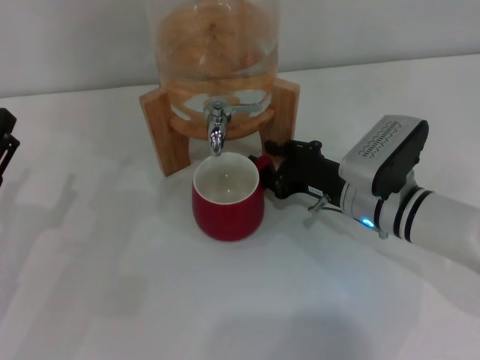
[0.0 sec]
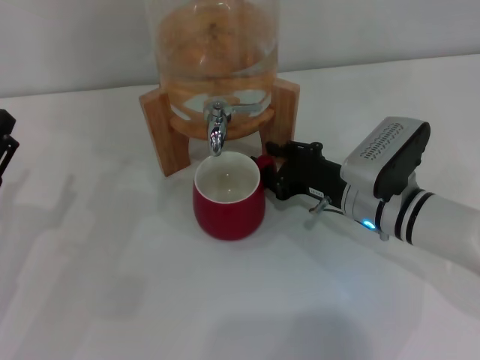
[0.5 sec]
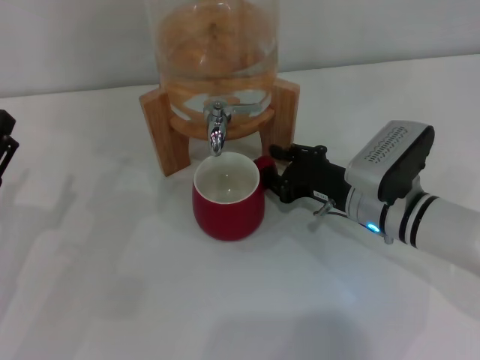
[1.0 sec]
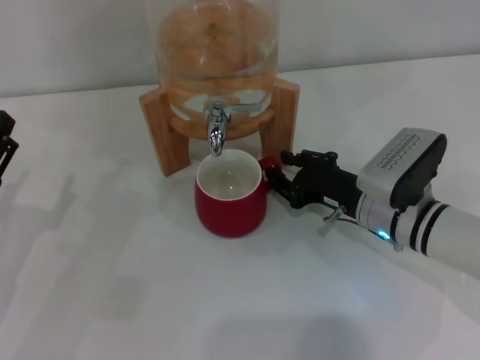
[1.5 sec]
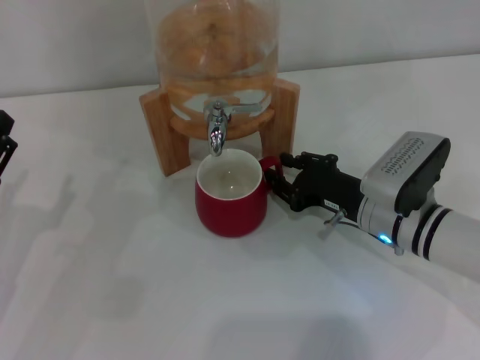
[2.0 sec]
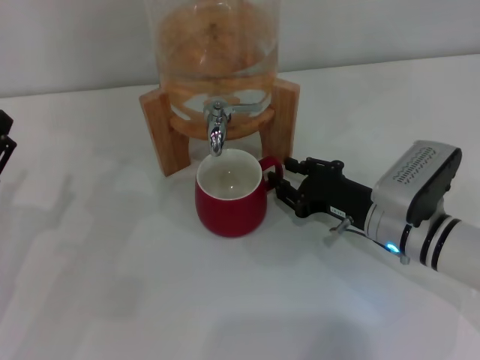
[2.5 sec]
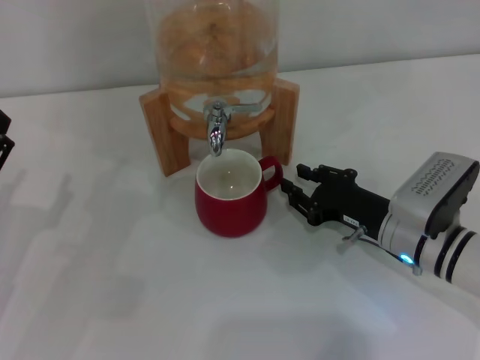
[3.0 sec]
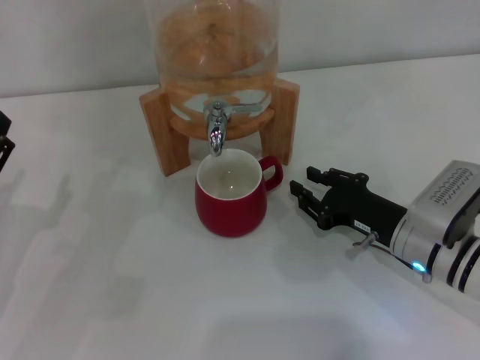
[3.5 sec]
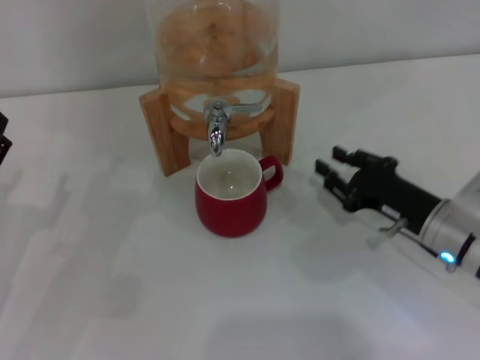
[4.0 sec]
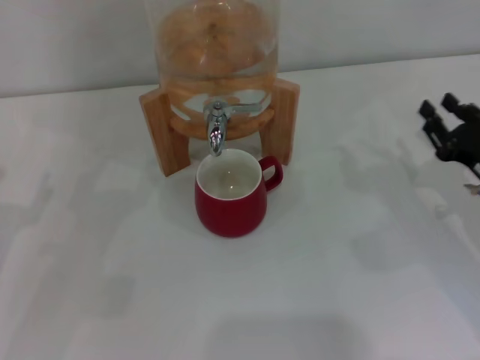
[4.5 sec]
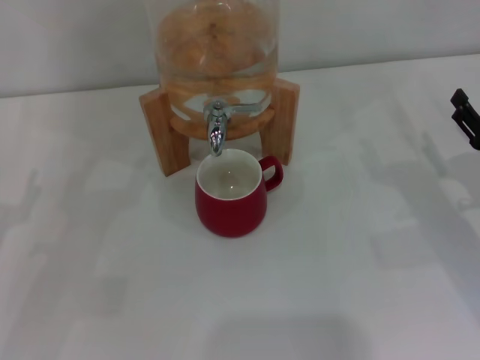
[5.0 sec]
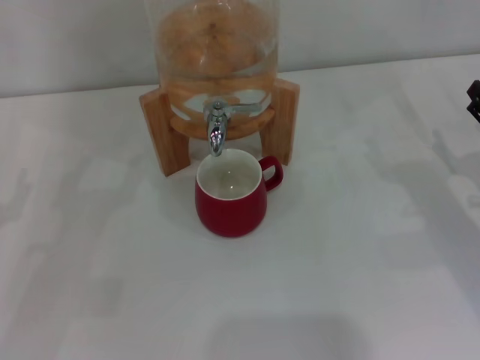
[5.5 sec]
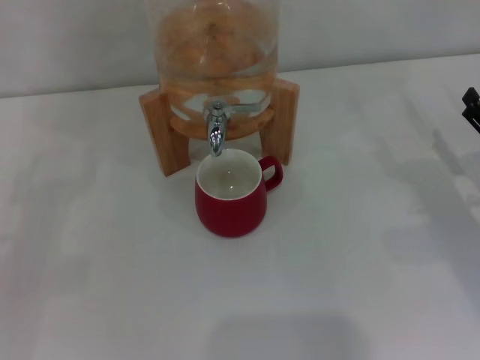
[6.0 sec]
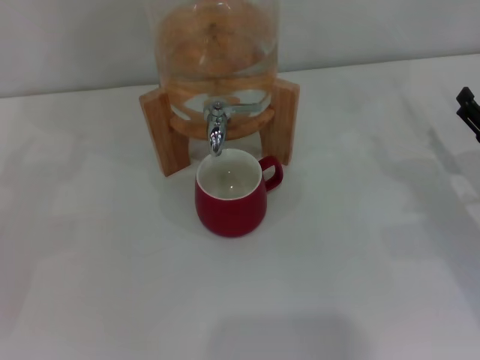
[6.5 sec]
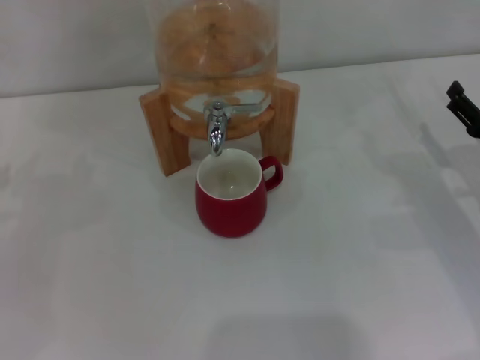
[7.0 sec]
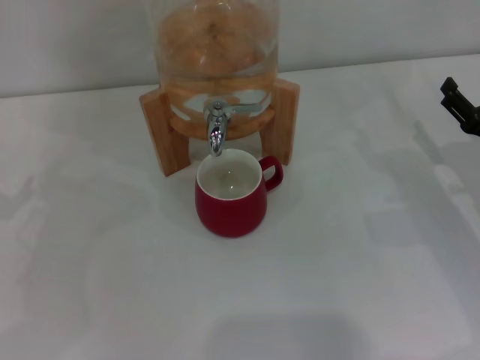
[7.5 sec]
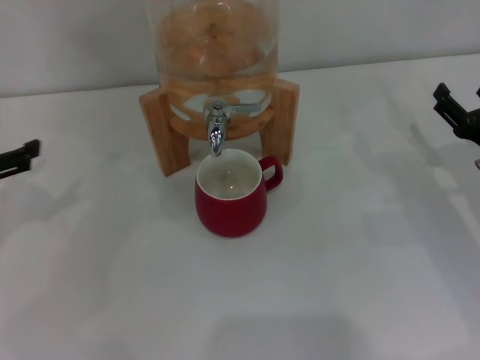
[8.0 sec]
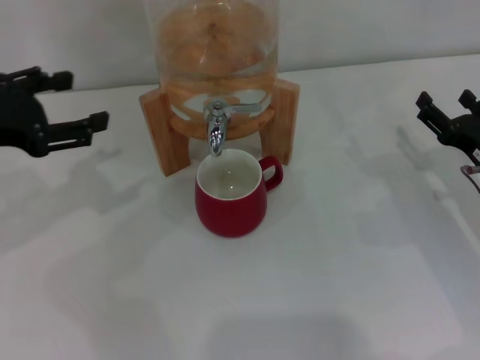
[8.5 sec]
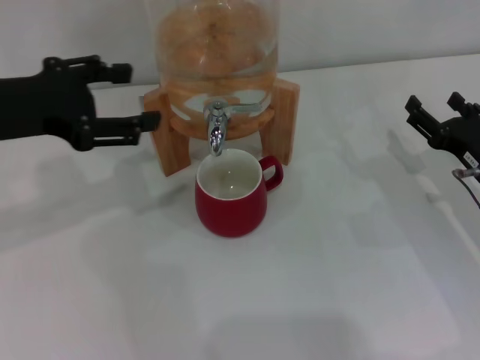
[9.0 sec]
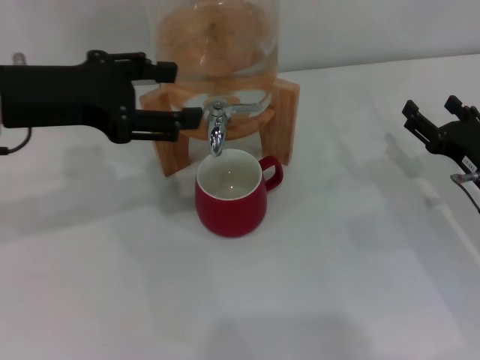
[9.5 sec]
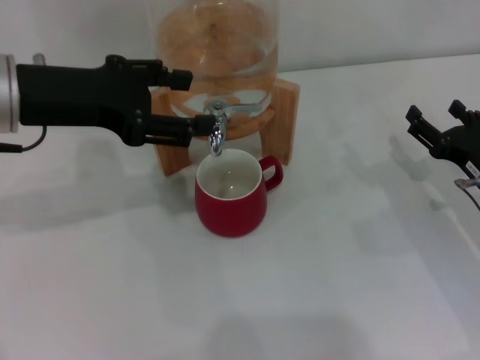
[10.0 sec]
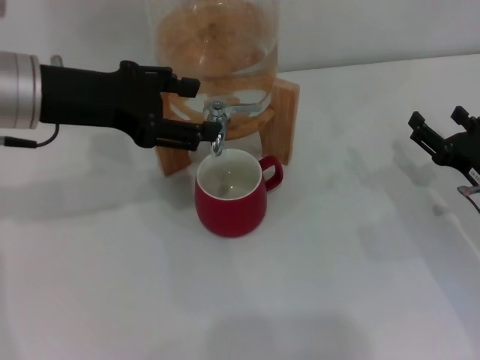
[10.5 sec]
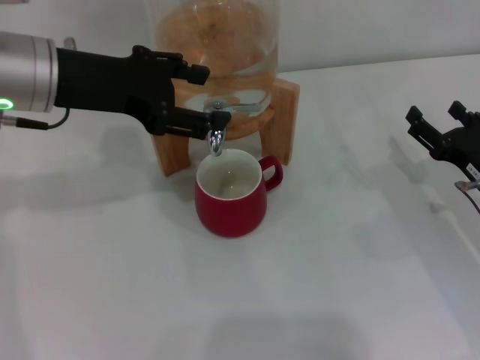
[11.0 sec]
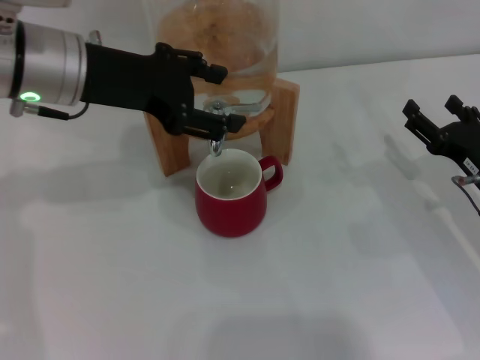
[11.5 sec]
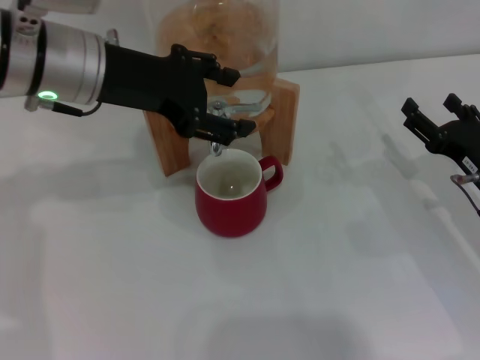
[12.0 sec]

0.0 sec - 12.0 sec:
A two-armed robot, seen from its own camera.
Task of the whole recording: the right gripper pick up the red cup and place it horizontally under the faucet, the left gripper turn on the faucet to fill the cup, and then turn off the faucet.
Step, 0.0 sec - 3.5 sec: Move the cup beneath the water dispenser nozzle with the right gripper.
0.0 sec - 2.0 sec: The grippers move only a little.
2.0 sec - 4.0 sec: The right gripper heads to the right, covering approximately 5 cm.
4.0 sec - 6.0 sec: The right gripper moves to the right, roughly 10 cm, and opens.
8.0 sec - 10.0 sec: The left gripper shifts some 15 cm to the right and upward.
10.0 sec - 12.0 sec: The left gripper goes about 5 cm to the right.

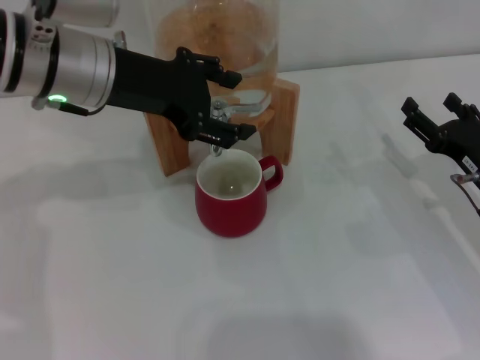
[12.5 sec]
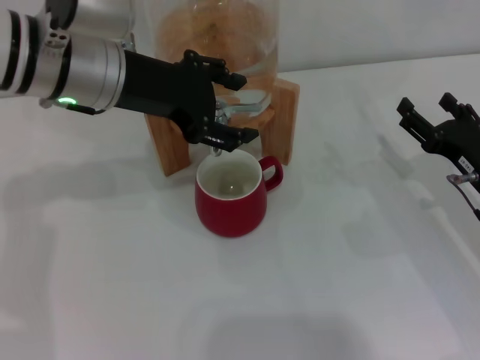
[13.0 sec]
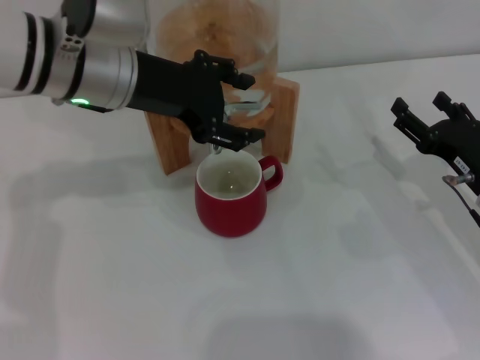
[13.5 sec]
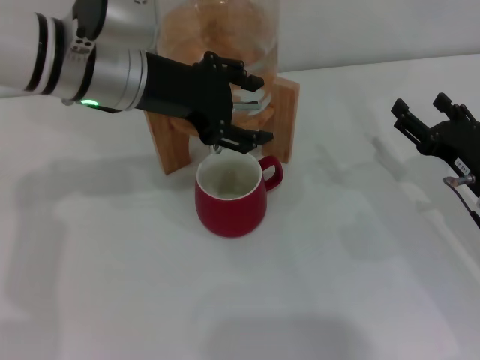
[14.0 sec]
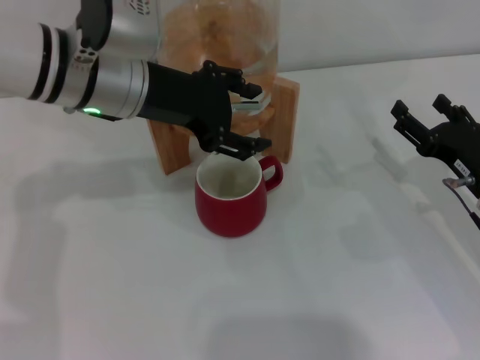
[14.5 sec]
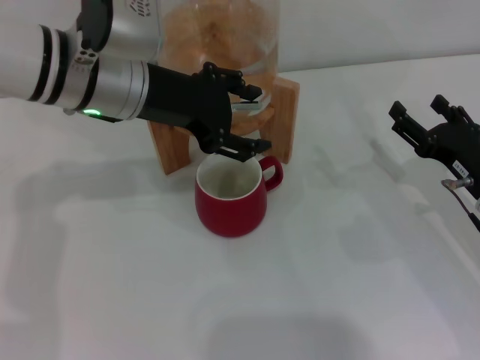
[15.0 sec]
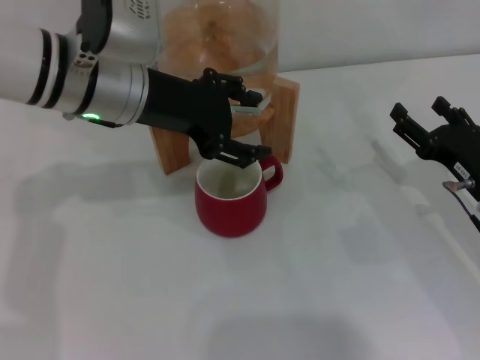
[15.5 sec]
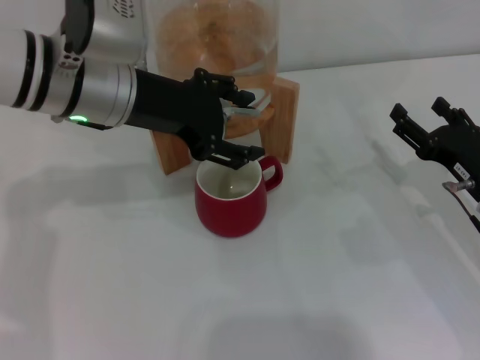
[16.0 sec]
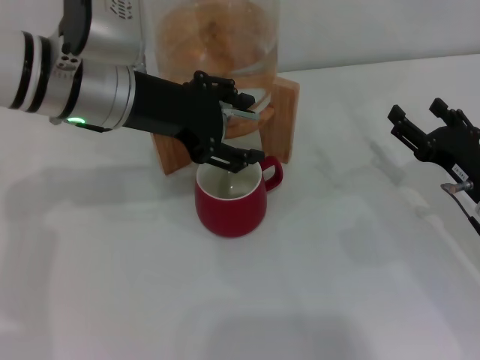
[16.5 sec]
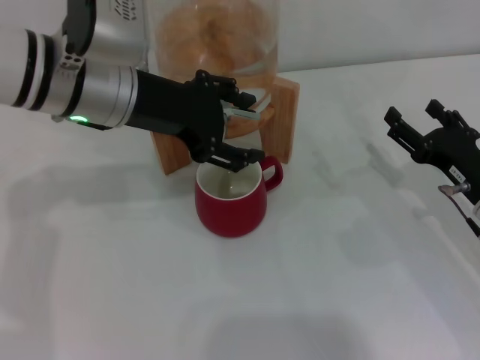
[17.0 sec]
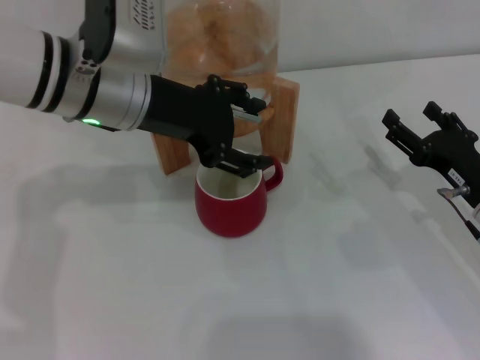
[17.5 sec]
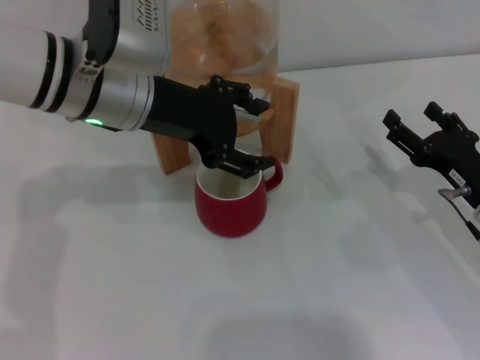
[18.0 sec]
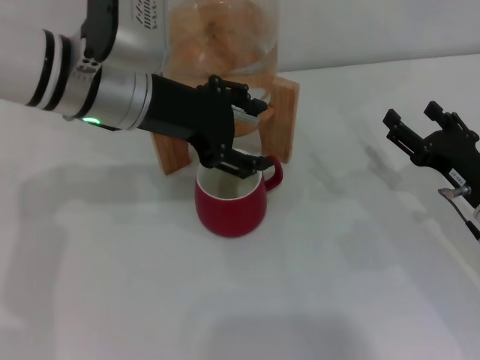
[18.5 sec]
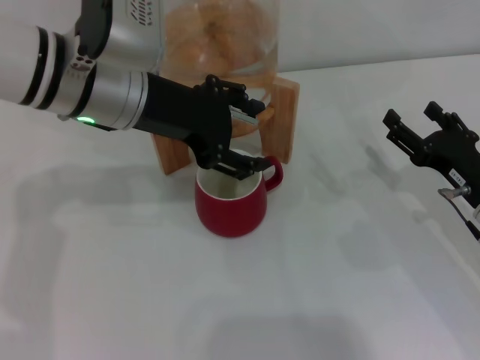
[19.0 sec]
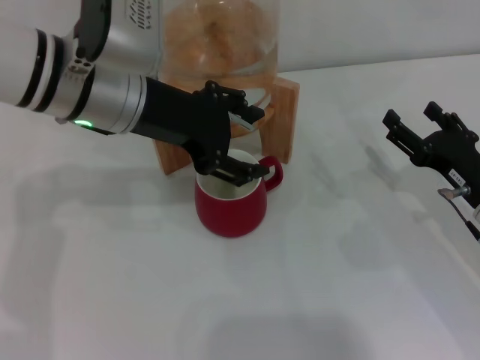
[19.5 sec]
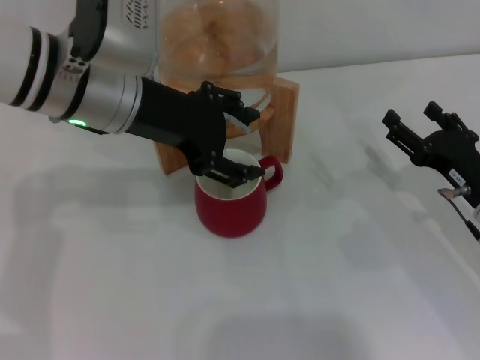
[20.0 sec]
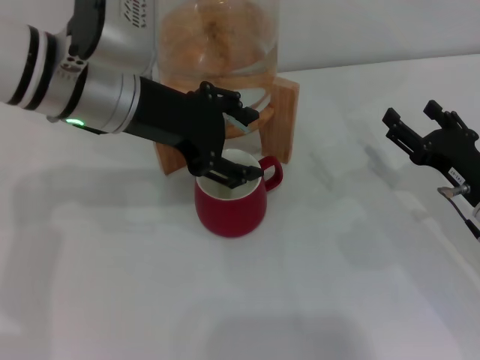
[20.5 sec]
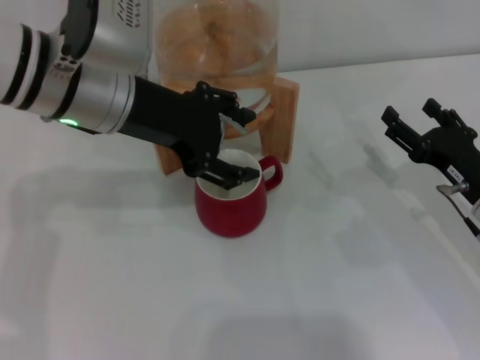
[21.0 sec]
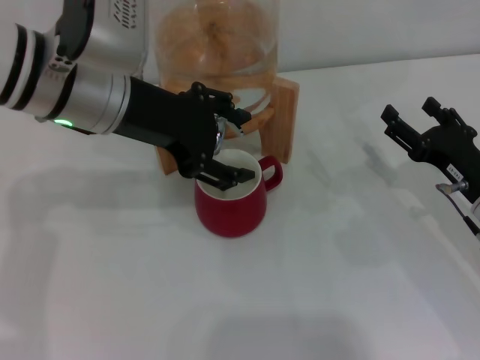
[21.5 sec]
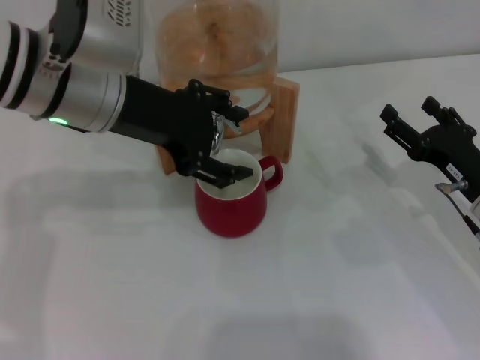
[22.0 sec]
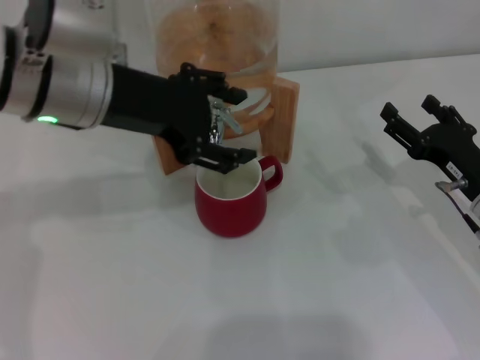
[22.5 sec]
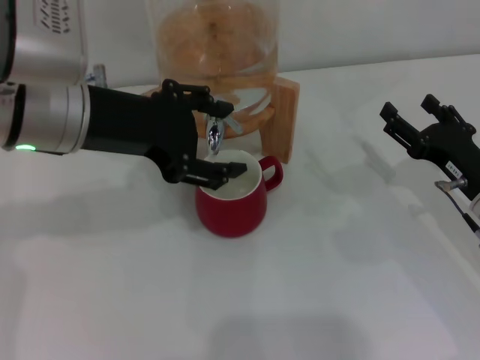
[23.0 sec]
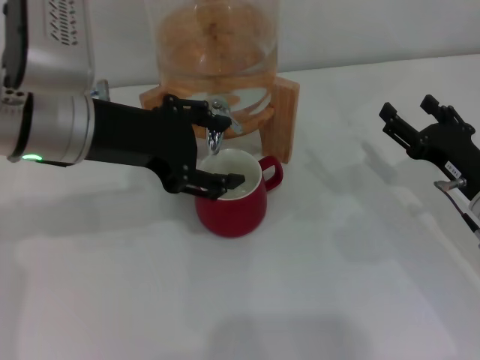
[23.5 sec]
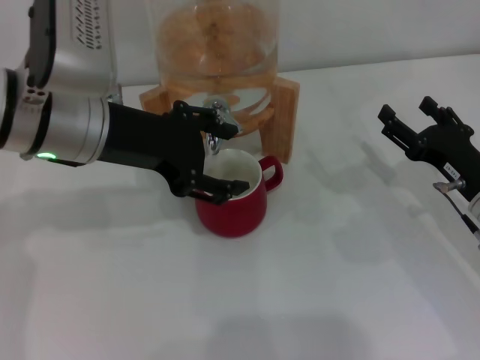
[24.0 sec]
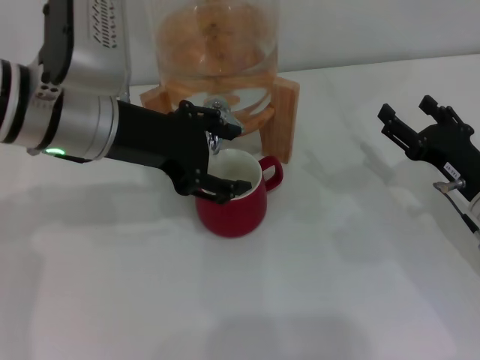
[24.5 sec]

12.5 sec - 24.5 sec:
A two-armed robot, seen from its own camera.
Task of the whole recording: the right gripper pick up the red cup and place it horizontally under the faucet, the left gripper turn on the faucet to fill the cup, and then turn off the faucet.
Step, 12.5 sec - 23.5 sec: Open the dispenser valve and fill the cup with water with the left gripper.
12.5 sec - 14.5 sec: The grippers move only a little.
14.5 sec - 18.5 sec: Both grippers stay put.
18.5 sec - 20.5 sec: The two grippers keep their place.
20.5 sec - 24.5 sec: There are only small adjustments of the grippers.

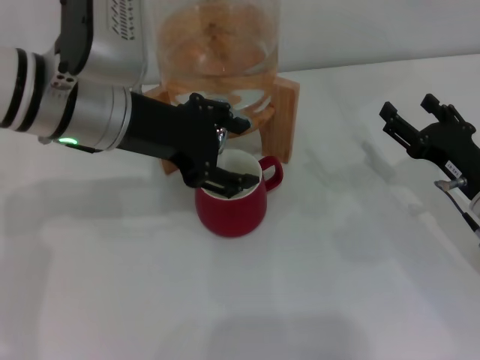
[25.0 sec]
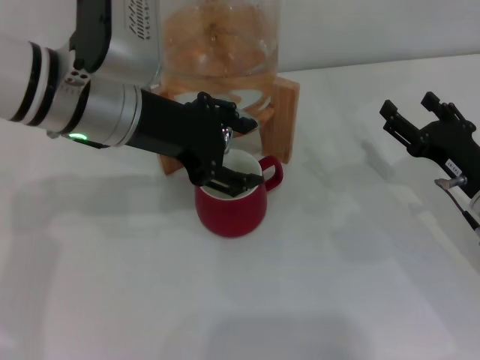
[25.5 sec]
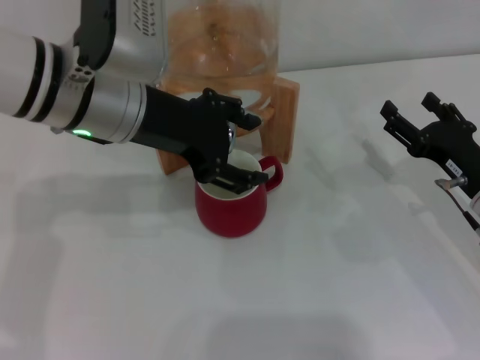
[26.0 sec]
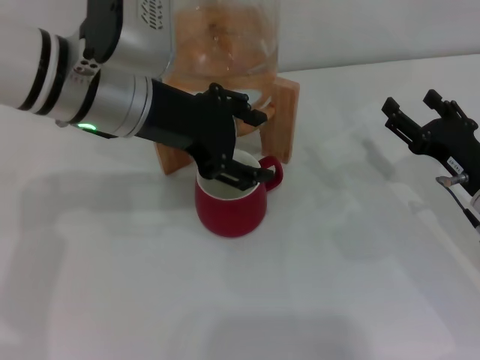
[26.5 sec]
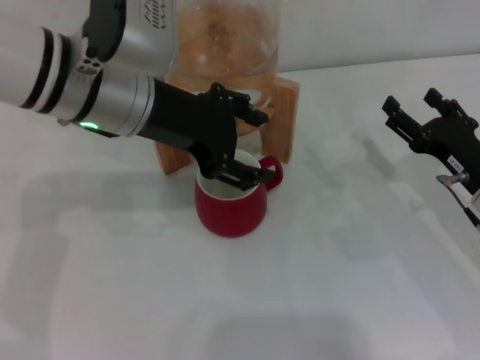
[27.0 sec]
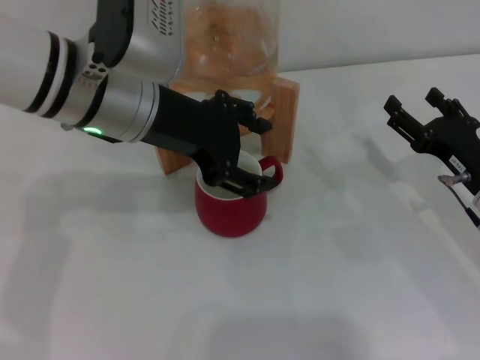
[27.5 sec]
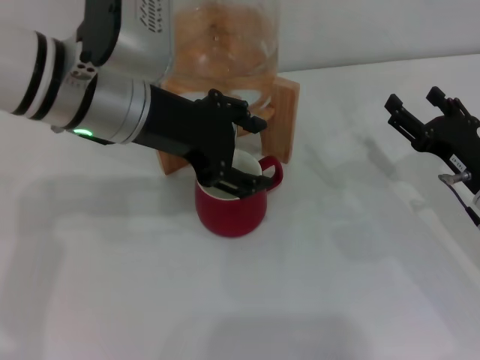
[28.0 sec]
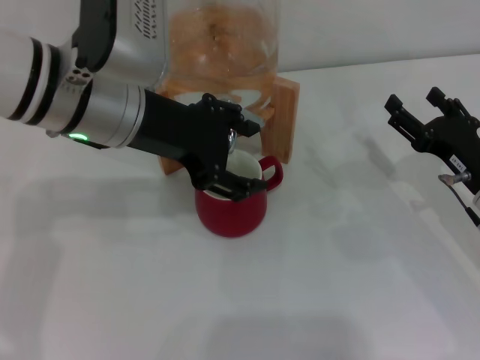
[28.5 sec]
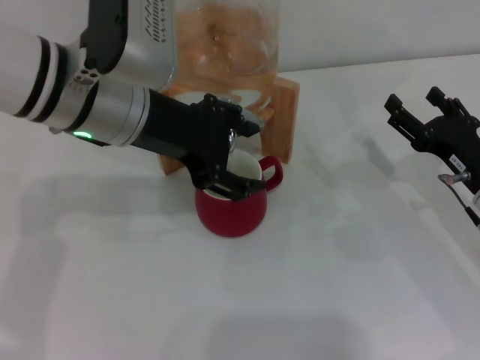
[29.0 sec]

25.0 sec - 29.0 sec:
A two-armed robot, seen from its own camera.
Task of the whole recording: the right gripper pick up the red cup and place it horizontally under the faucet, the left gripper turn on the faucet to fill the cup, and then turn off the faucet.
25.0 sec - 27.0 sec: There are only small adjustments of the grippers.
27.0 sec - 29.0 sec: Both grippers stay about where they are.
